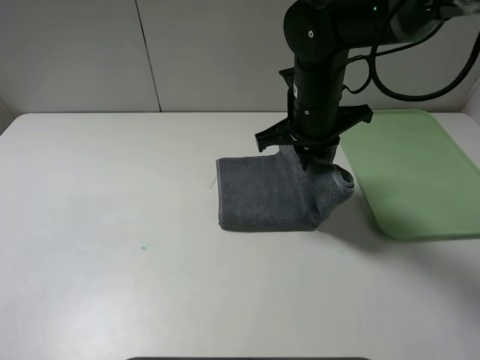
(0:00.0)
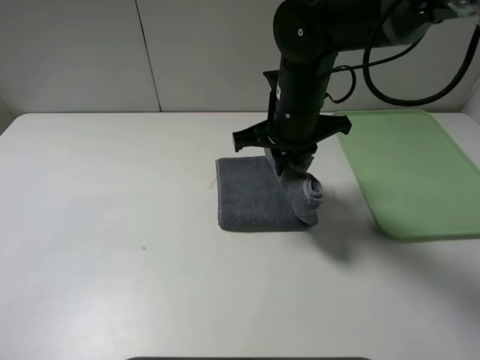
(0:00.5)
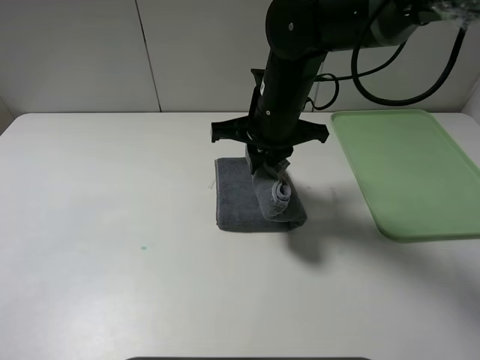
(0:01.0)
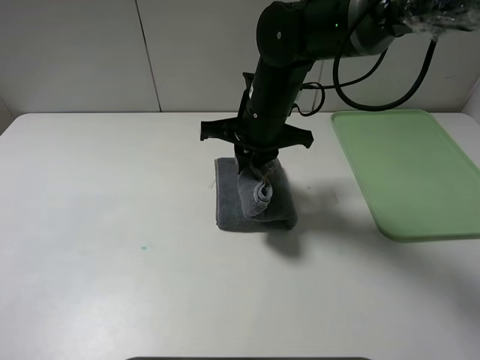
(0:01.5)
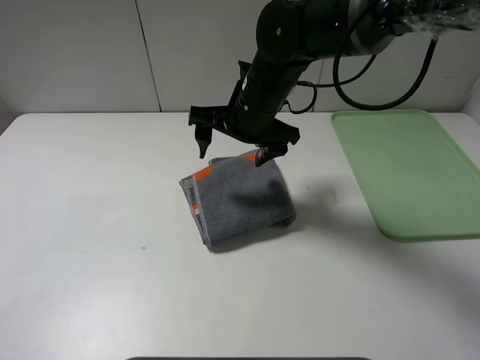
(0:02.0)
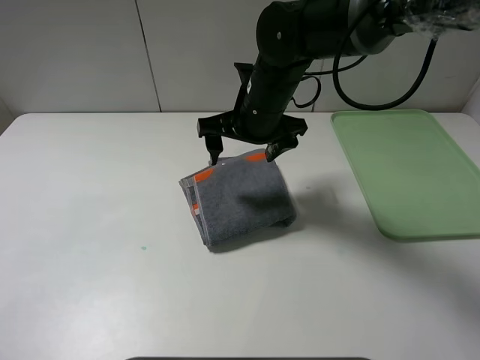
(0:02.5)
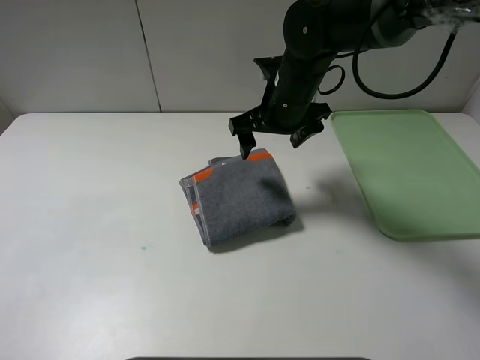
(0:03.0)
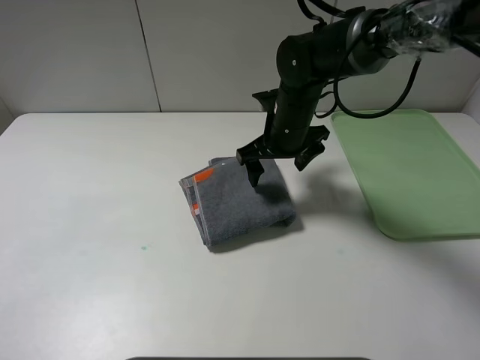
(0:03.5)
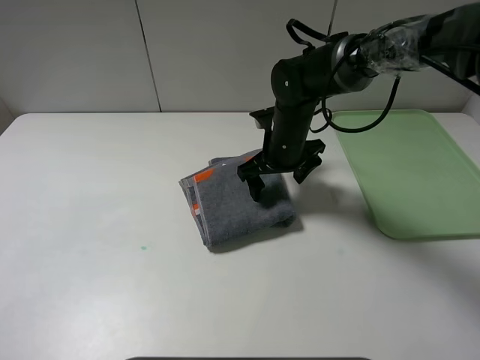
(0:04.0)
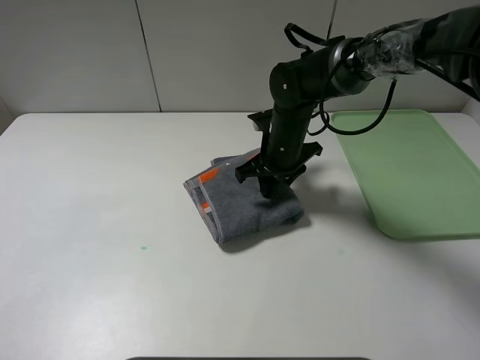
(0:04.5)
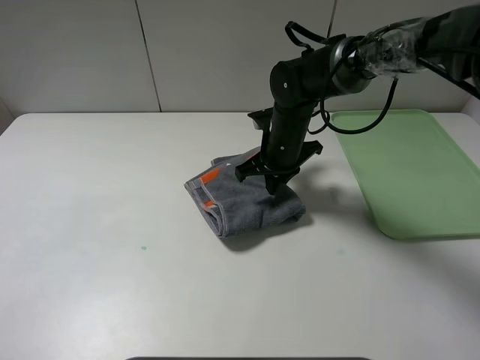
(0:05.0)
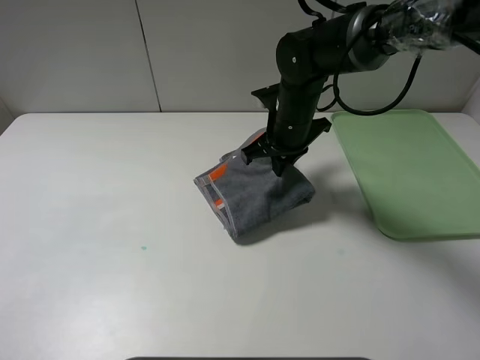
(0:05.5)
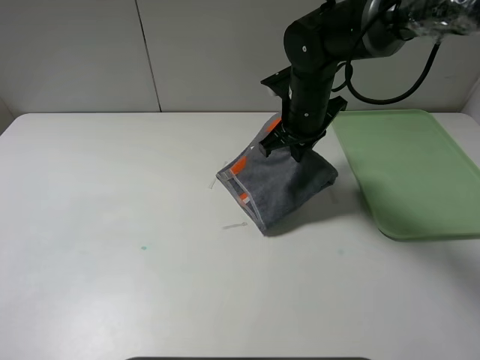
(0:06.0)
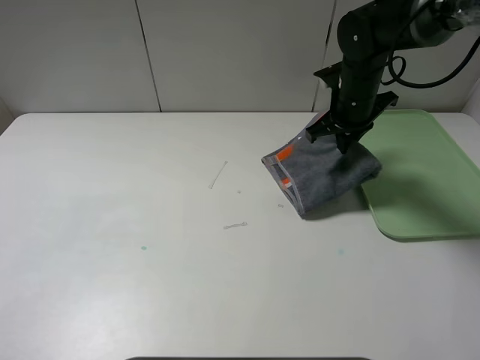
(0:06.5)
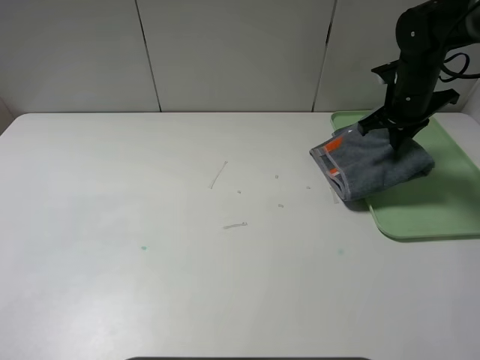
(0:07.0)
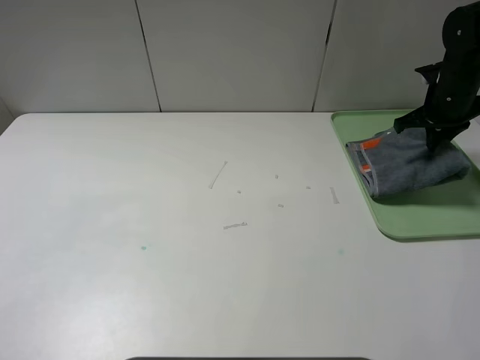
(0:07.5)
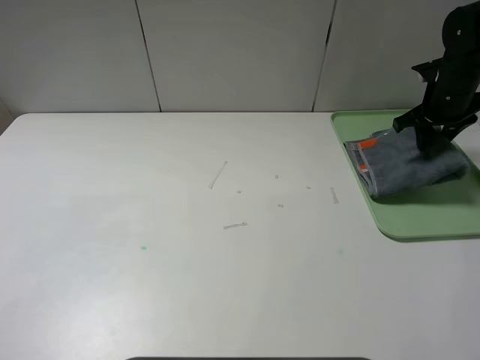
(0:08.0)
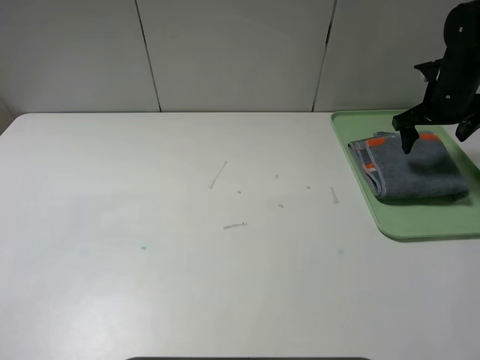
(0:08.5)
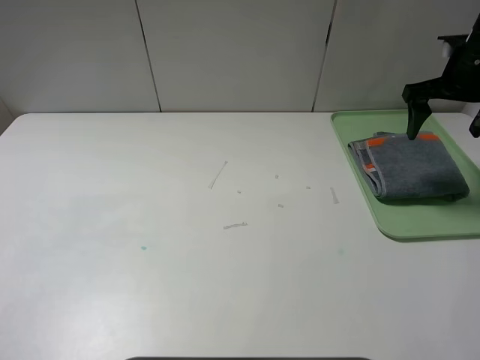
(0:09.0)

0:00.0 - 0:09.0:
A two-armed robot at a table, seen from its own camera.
Step, 0:00.0 - 0:02.0: Fold the grey towel from right to left with right gripper.
Step, 0:02.5 - 0:08.0: Place the folded grey towel on the tray with the right gripper.
0:00.0 - 0:02.0: The right gripper moves to the left, roughly 5 cm, and opens its fingers.
0:02.0 - 0:04.5: The right gripper goes approximately 10 cm downward, and closes its fingers.
0:04.5 - 0:07.0: The right gripper travels to the right by some 20 cm.
0:07.0 - 0:09.0: The right gripper shifts roughly 10 cm upward, and opens.

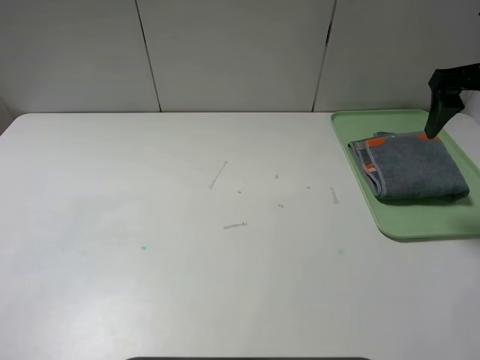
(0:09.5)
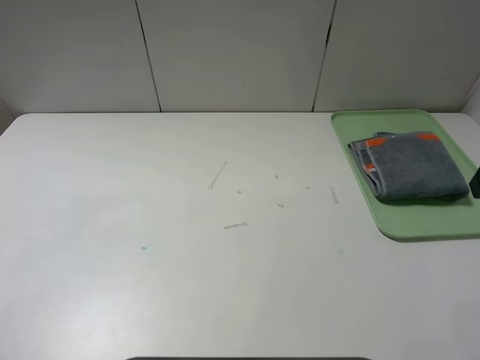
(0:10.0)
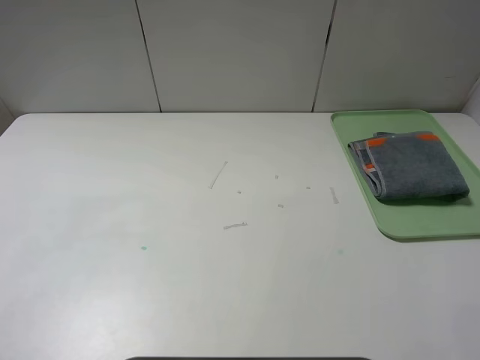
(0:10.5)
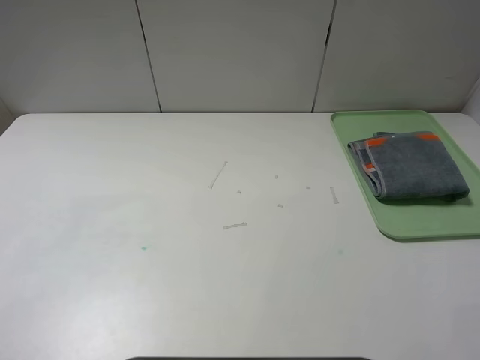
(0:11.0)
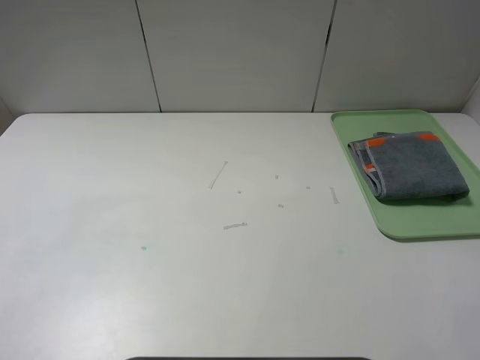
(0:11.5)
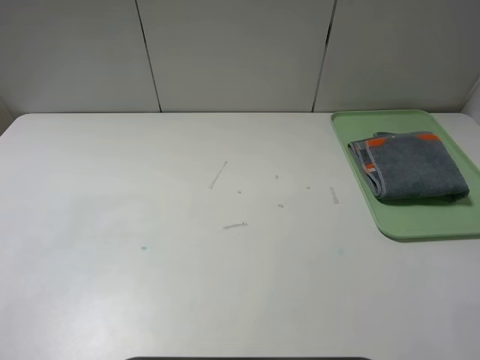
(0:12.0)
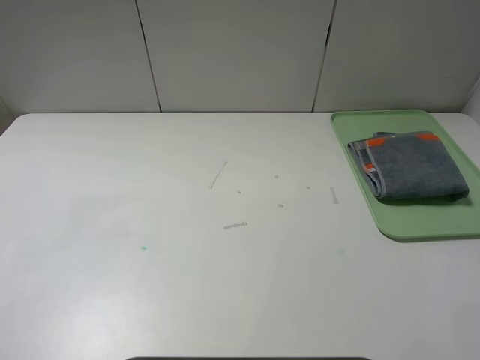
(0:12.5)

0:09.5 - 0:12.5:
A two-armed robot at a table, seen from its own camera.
0:09.5 - 0:11.0: The right gripper travels backward by about 35 cm.
